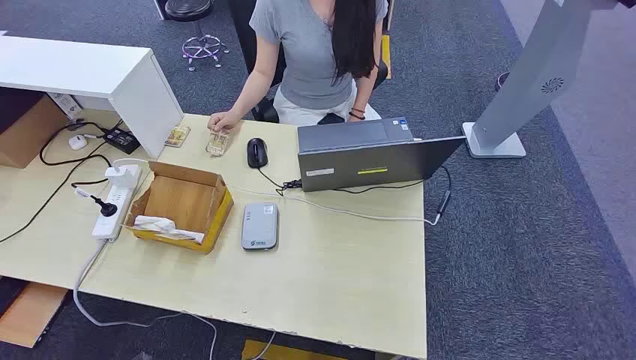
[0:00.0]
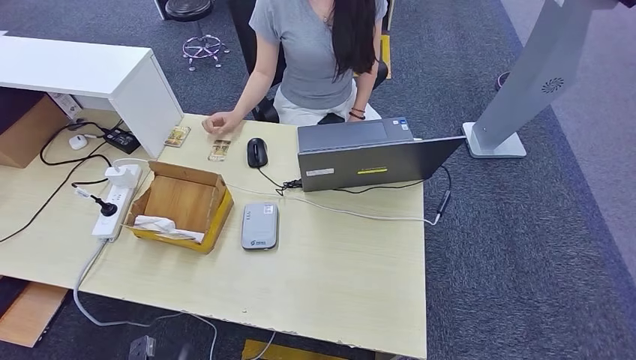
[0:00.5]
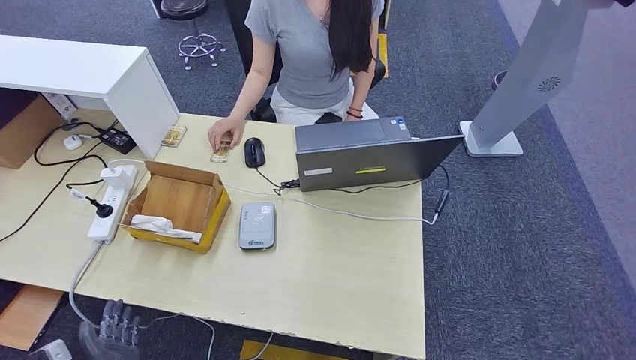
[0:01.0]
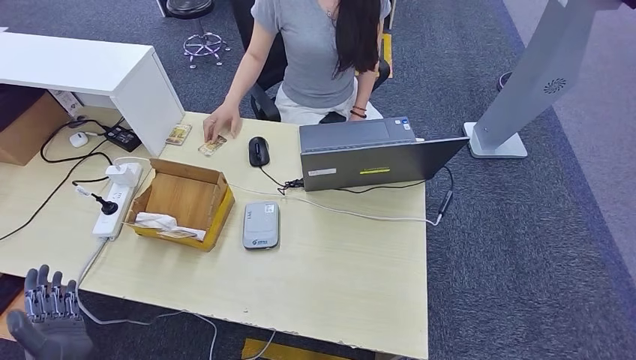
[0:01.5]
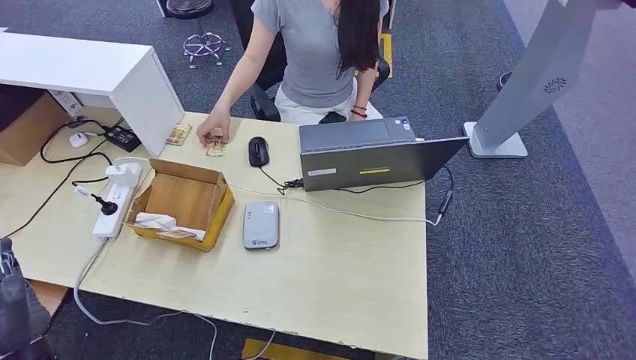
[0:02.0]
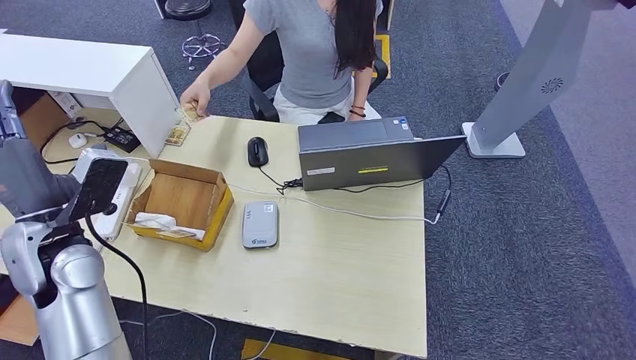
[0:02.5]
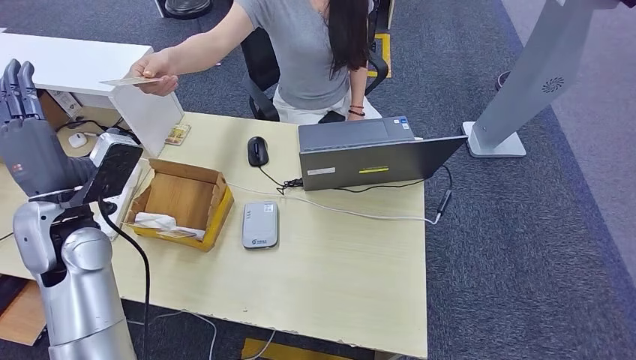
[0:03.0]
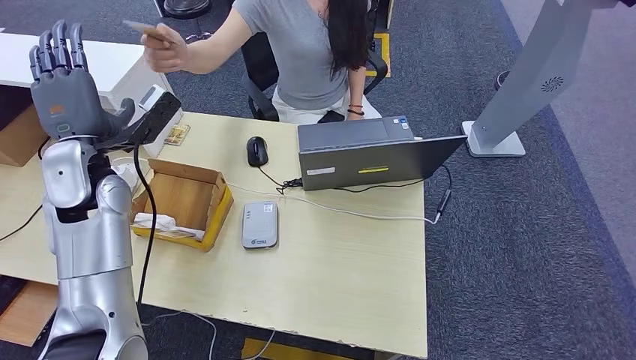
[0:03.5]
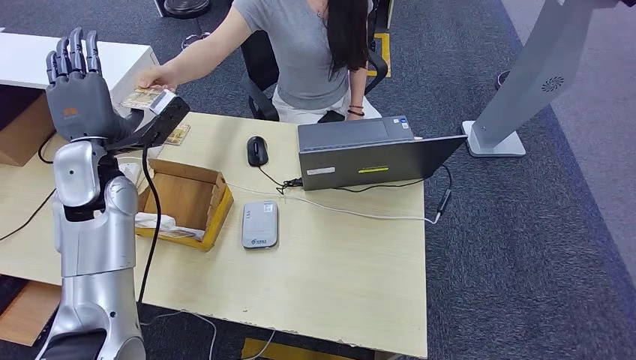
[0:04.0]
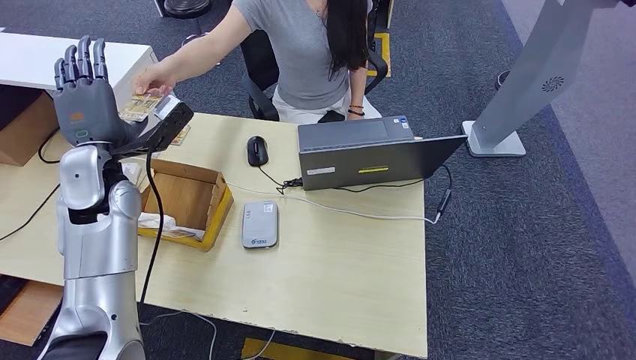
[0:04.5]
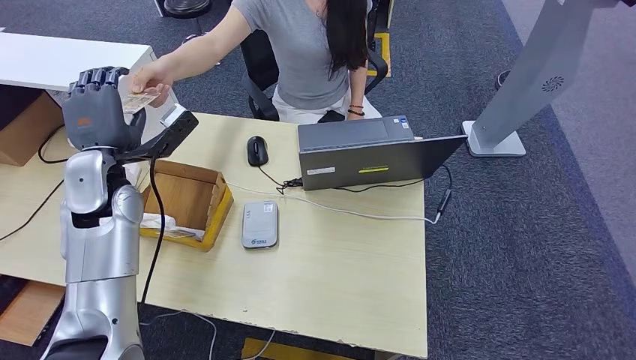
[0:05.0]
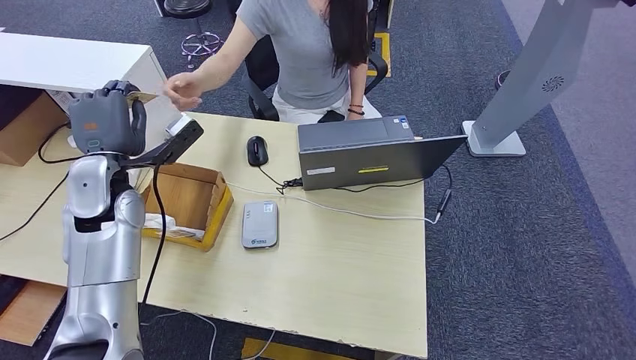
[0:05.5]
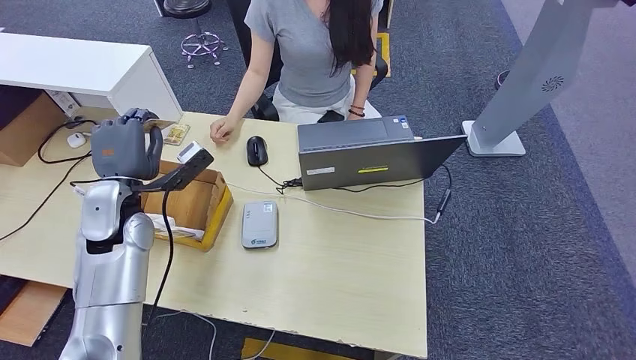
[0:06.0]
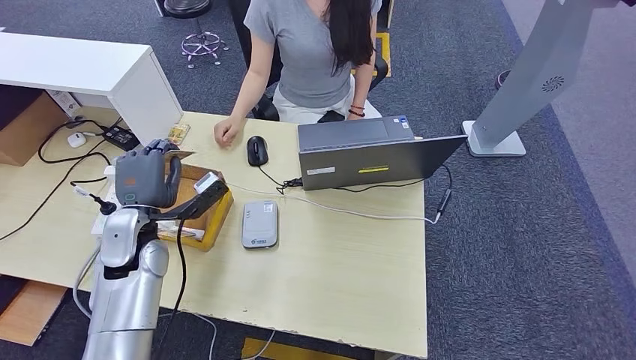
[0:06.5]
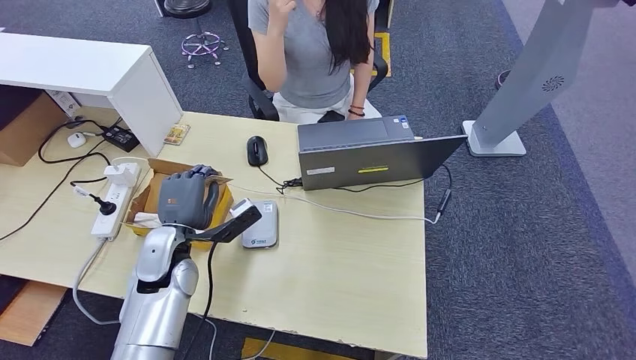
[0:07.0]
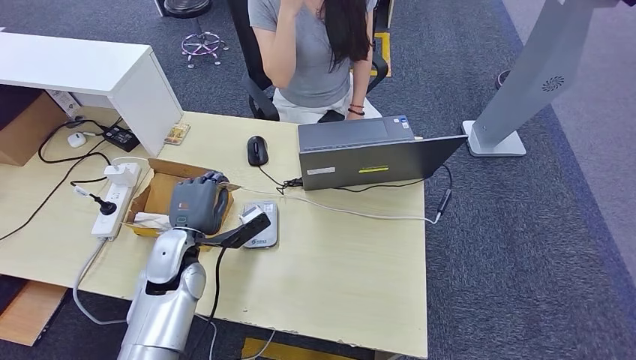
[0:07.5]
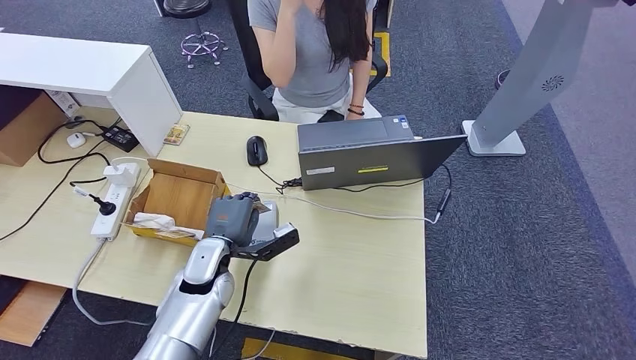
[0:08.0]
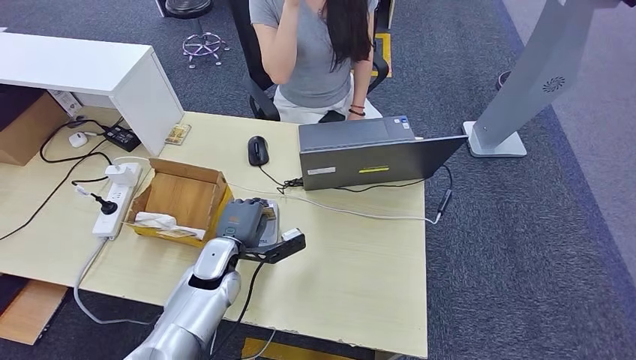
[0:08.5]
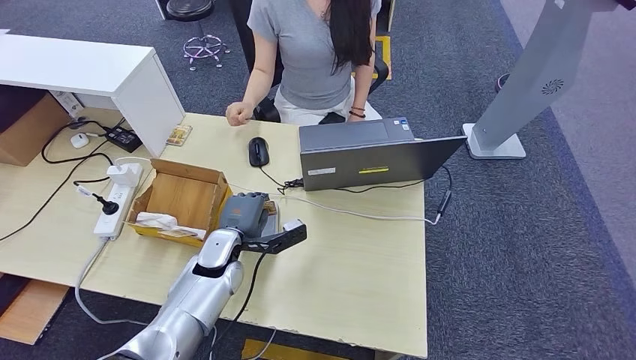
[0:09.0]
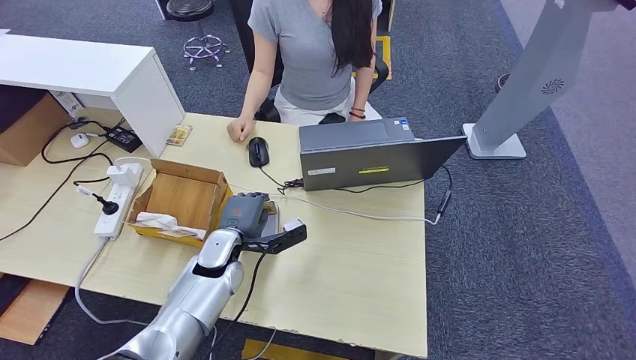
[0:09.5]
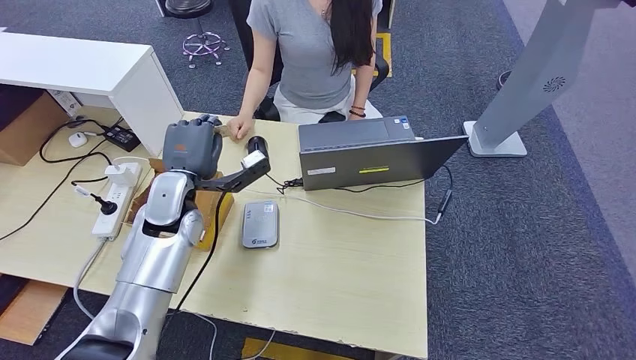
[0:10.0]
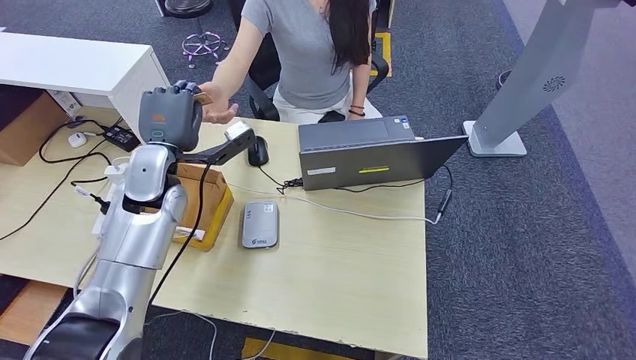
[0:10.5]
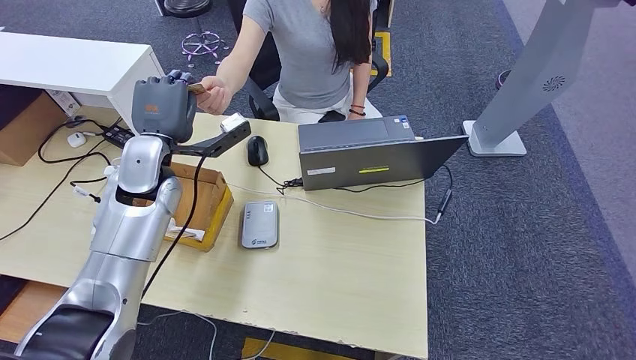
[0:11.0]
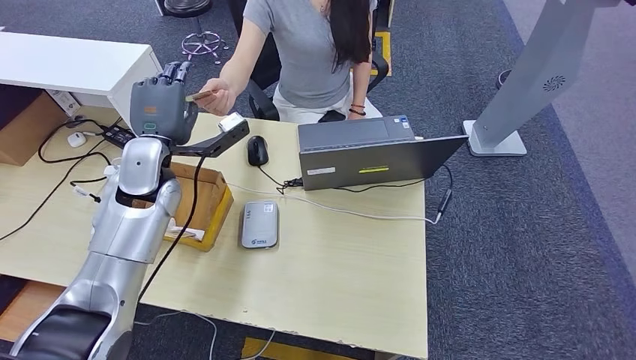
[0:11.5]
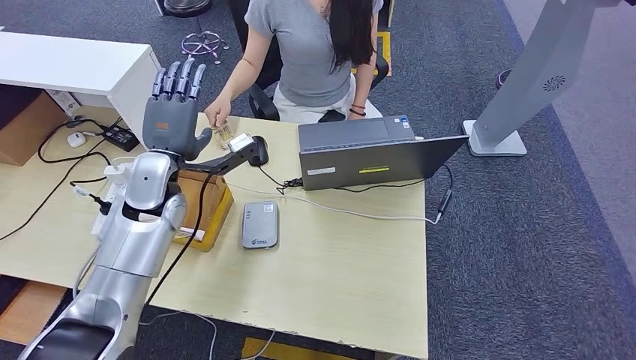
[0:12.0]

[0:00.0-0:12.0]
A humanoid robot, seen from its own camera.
Step, 0:00.0 to 0:05.5: Take the ID card from the person's hand.
Step, 0:06.5 to 0:09.0: Place the ID card on the card reader.
Step, 0:10.0 to 0:11.5: Hand the ID card to the person.
0:04.0 to 0:06.0: The left hand travels downward by some 5 cm.
0:06.0 to 0:08.0: The left hand shifts some 20 cm downward and to the right.
0:08.0 to 0:10.0: The left hand shifts roughly 10 cm upward and forward.

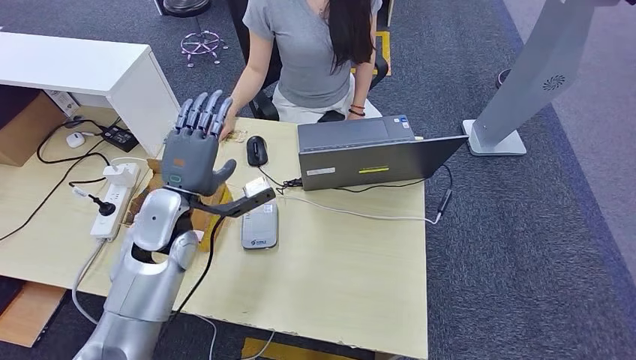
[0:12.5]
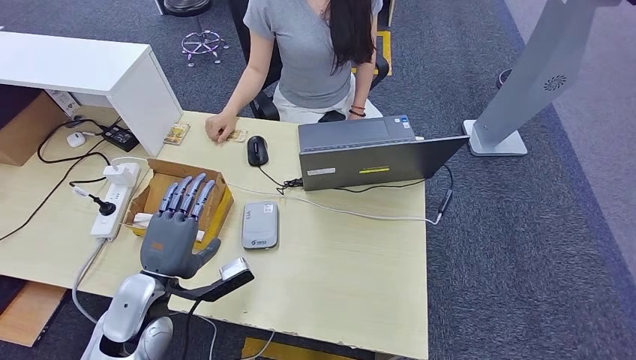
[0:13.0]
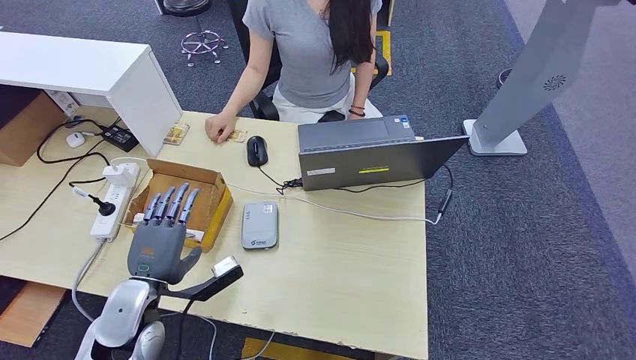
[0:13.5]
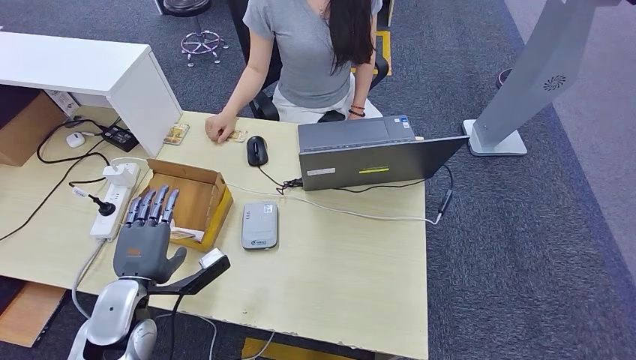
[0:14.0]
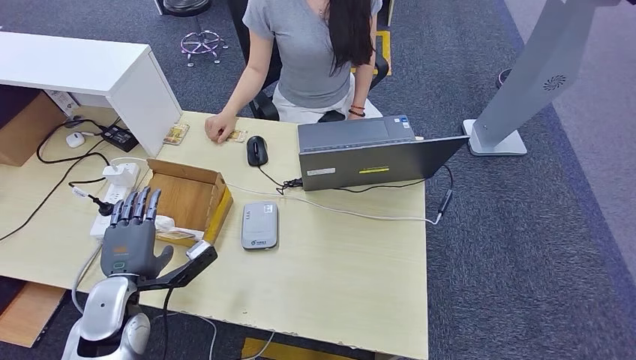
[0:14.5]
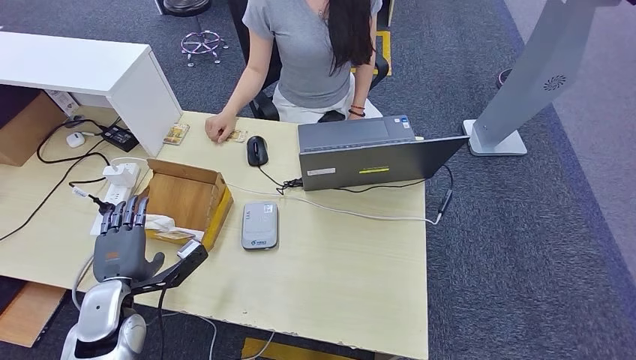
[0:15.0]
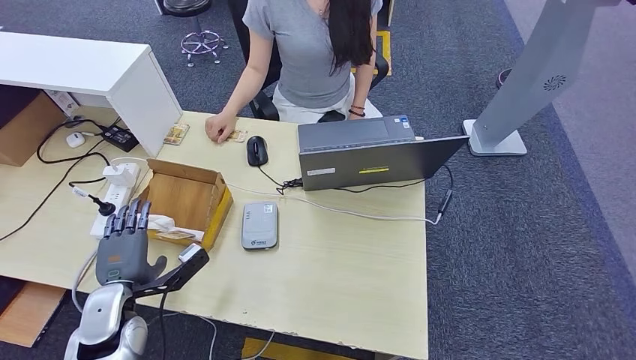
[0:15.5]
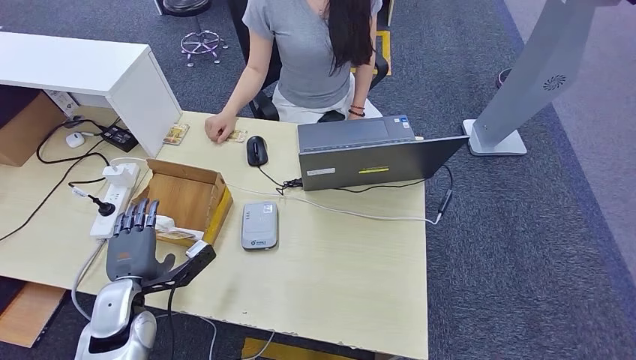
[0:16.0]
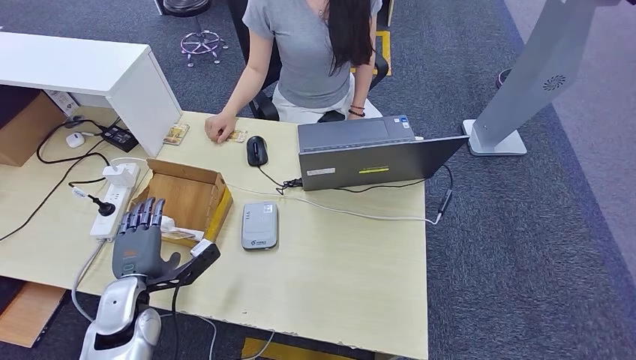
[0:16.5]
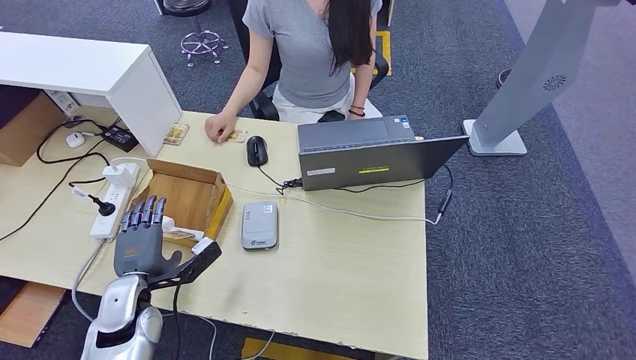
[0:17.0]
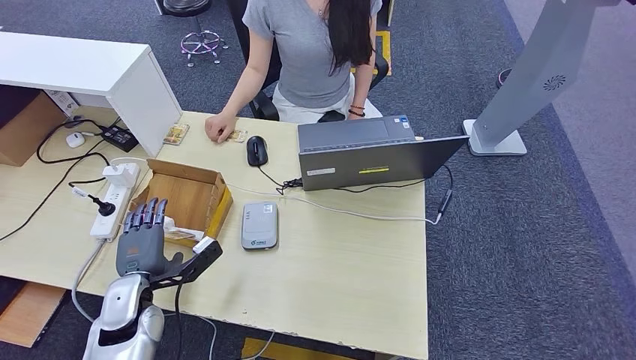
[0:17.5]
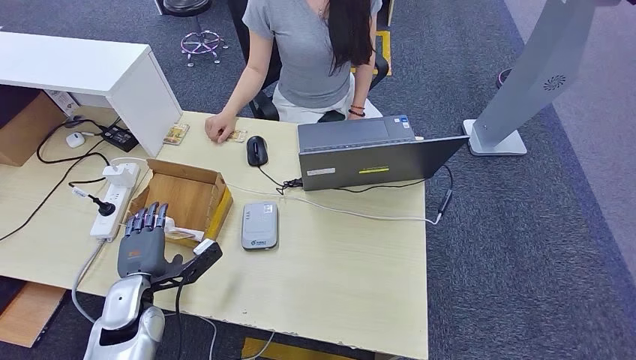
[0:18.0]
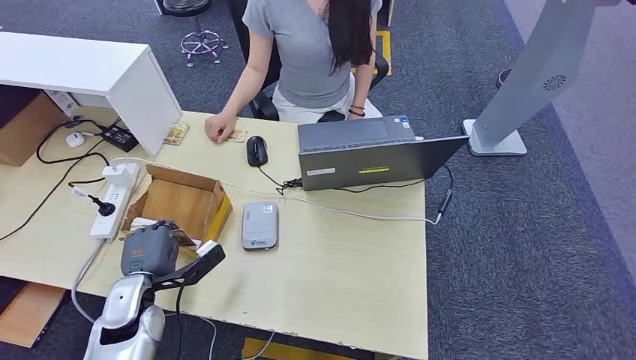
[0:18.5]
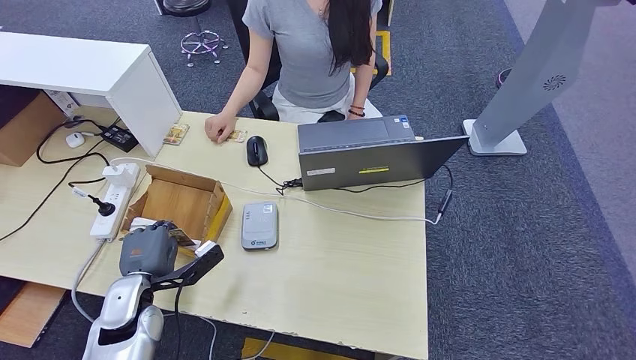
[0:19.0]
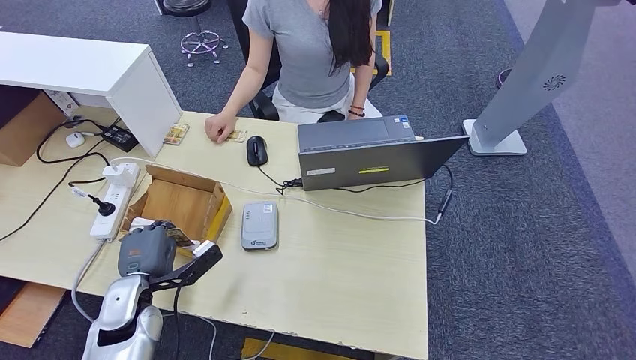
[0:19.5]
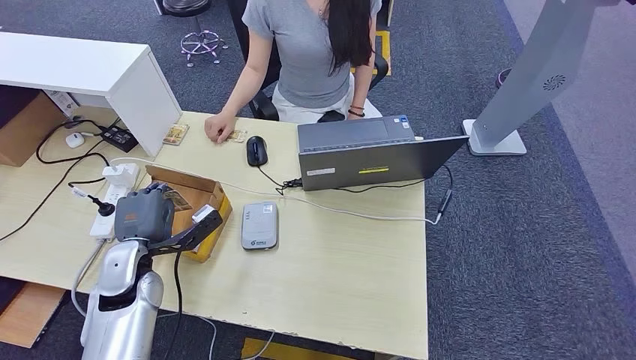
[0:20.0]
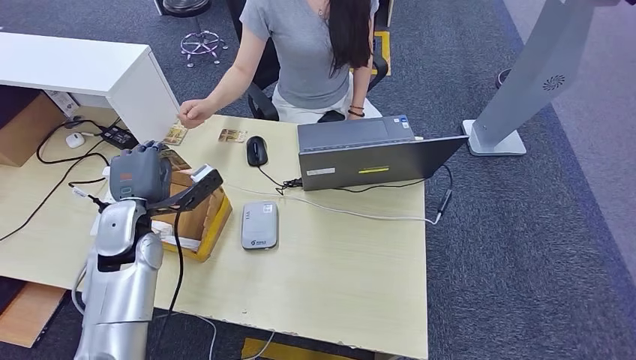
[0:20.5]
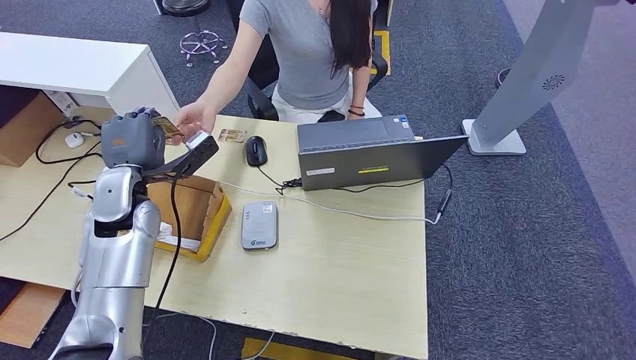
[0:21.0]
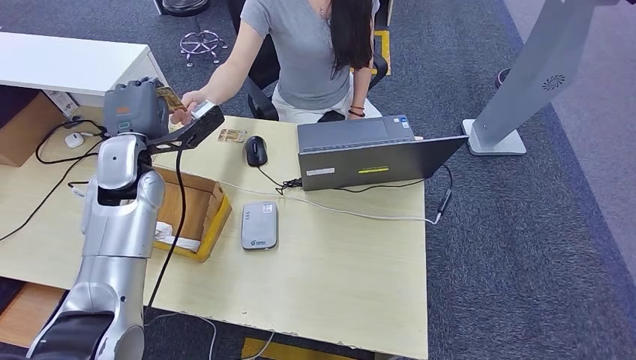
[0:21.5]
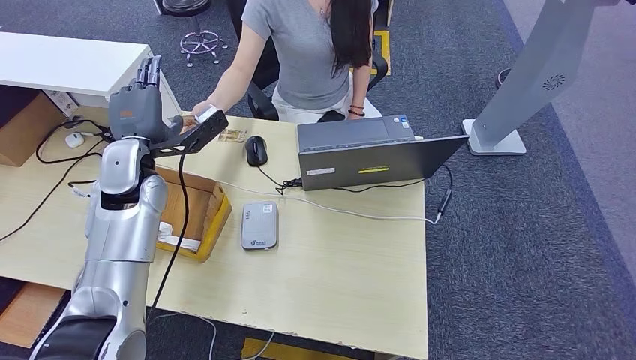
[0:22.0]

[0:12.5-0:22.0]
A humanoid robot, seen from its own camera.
Step, 0:18.5 to 0:20.0: Pick up the room key from the key card box.
Step, 0:21.0 to 0:22.0: Hand the room key to the person.
0:12.5 to 0:14.5: The left hand is displaced backward, downward and to the left by some 15 cm.
0:14.5 to 0:16.5: The hands move only a little.
0:16.5 to 0:18.0: Both hands stay about where they are.
0:18.0 to 0:20.0: The left hand ends up some 5 cm from where it was.
0:20.0 to 0:22.0: The left hand moves upward and forward, roughly 15 cm.
